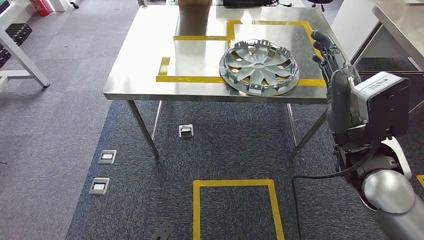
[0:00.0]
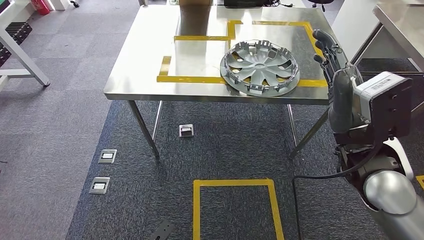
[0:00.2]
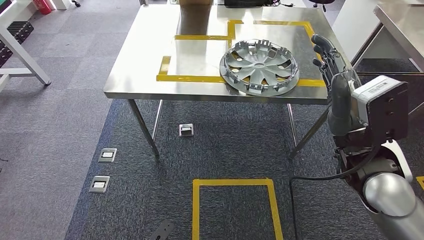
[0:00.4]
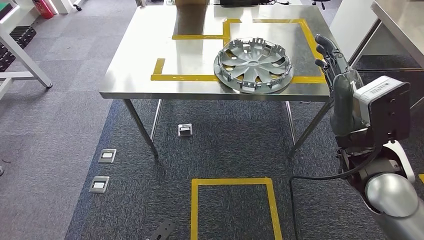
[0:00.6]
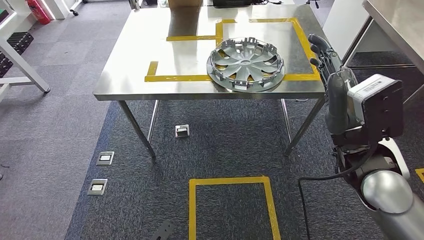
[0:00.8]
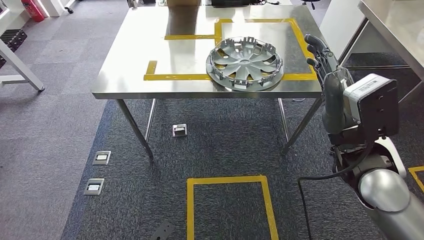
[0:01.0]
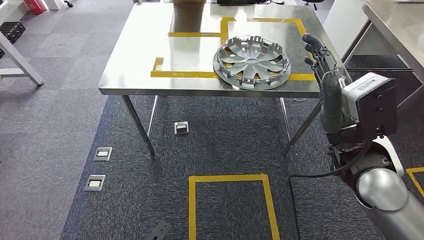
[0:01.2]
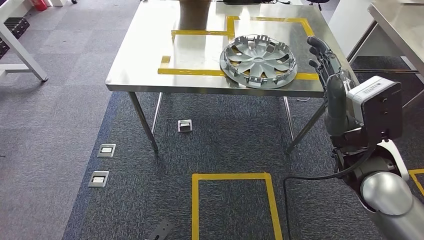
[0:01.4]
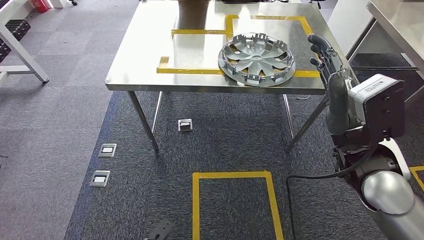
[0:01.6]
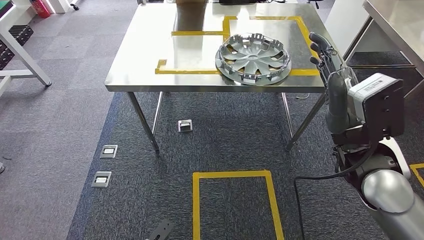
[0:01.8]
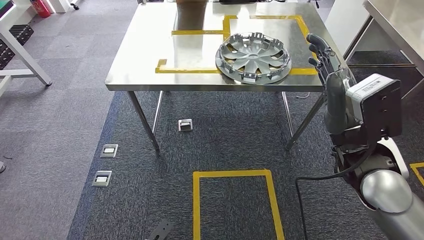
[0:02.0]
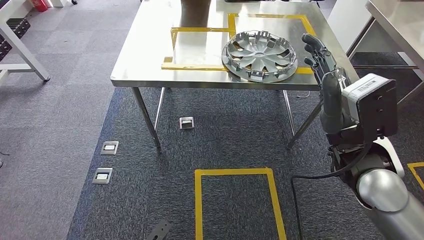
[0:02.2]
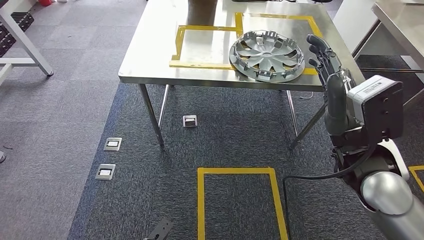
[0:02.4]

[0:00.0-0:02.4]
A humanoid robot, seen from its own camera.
Step, 0:00.0 to 0:02.4: Move to the initial position of the shelf.
